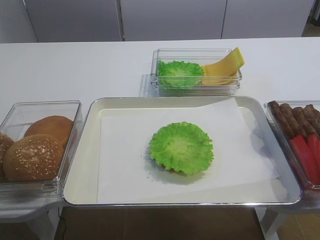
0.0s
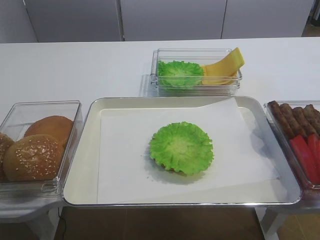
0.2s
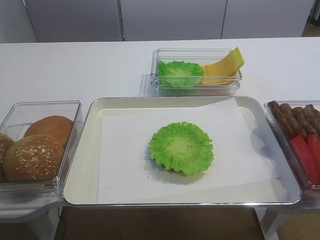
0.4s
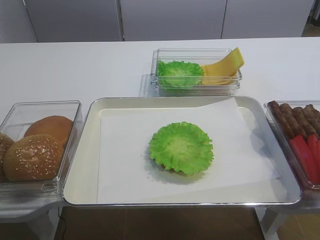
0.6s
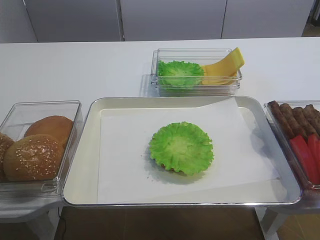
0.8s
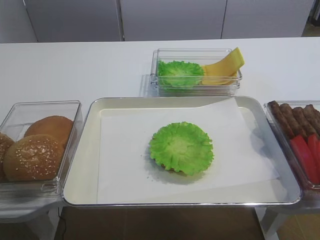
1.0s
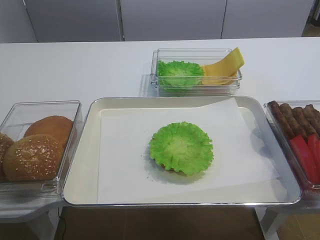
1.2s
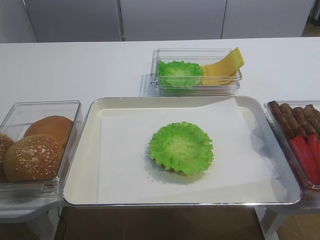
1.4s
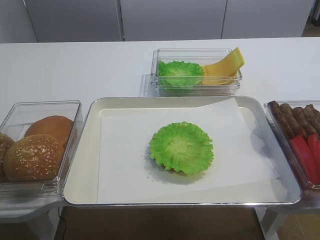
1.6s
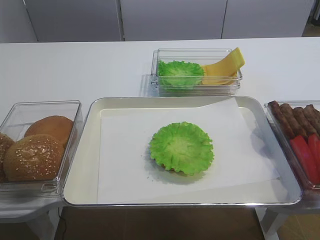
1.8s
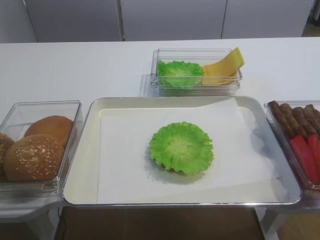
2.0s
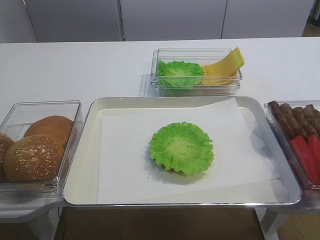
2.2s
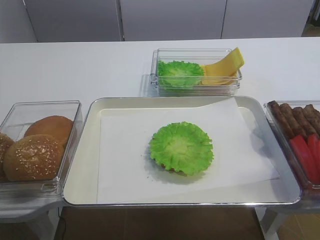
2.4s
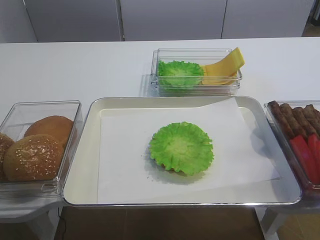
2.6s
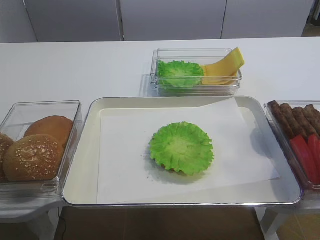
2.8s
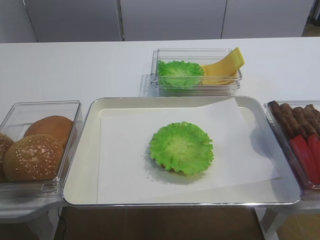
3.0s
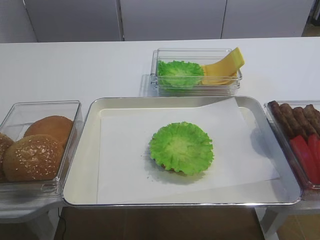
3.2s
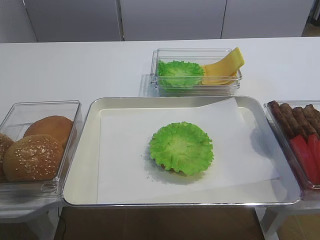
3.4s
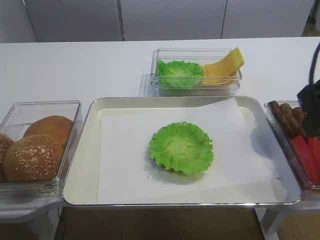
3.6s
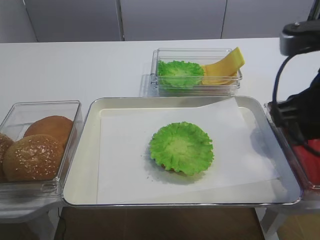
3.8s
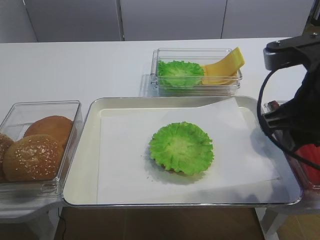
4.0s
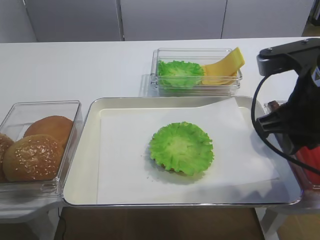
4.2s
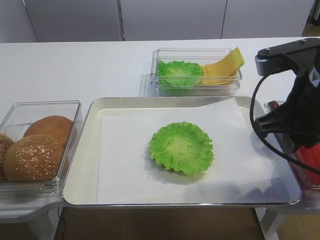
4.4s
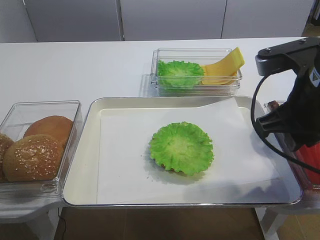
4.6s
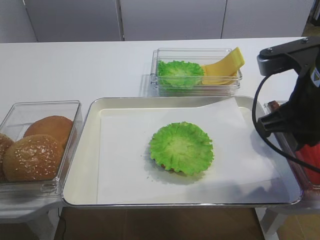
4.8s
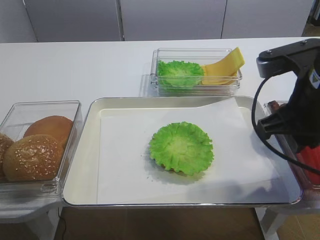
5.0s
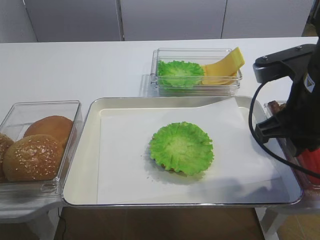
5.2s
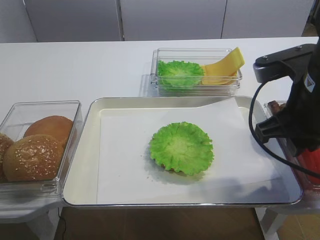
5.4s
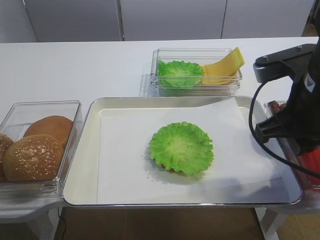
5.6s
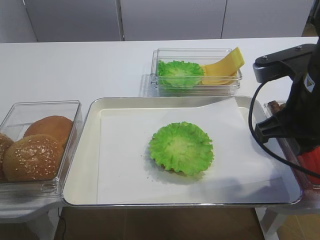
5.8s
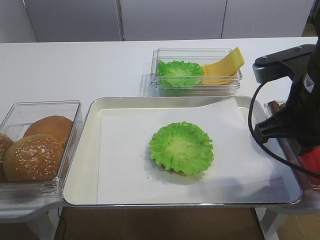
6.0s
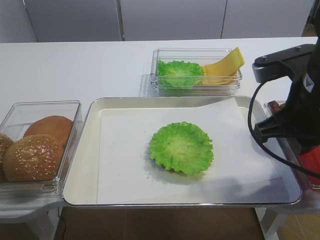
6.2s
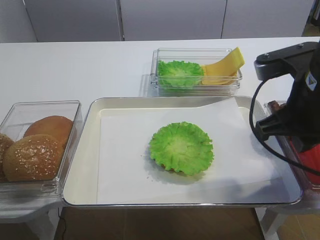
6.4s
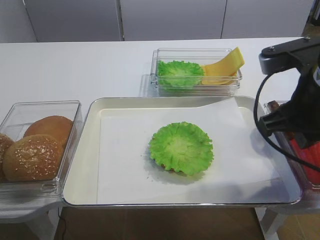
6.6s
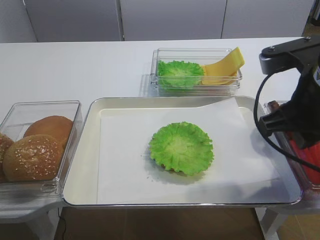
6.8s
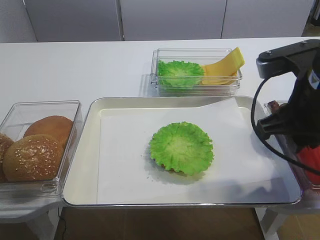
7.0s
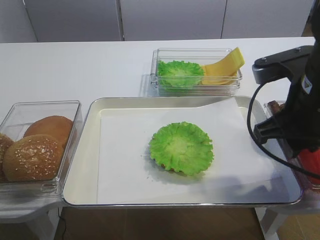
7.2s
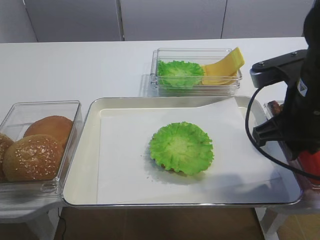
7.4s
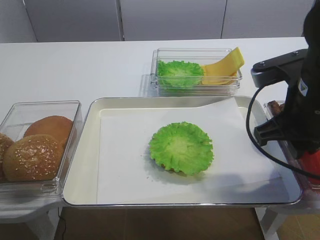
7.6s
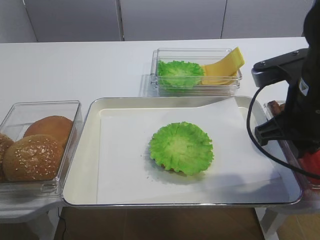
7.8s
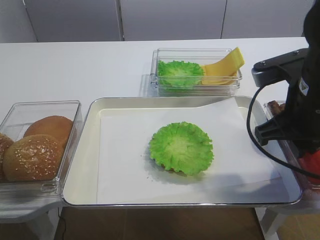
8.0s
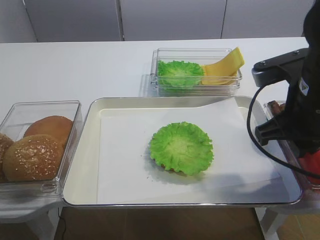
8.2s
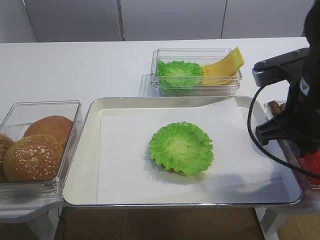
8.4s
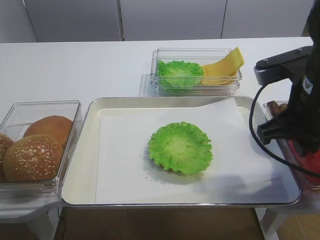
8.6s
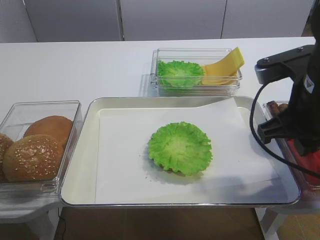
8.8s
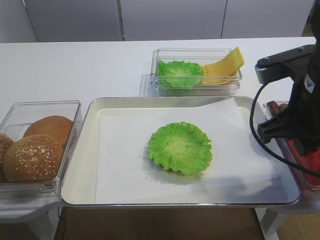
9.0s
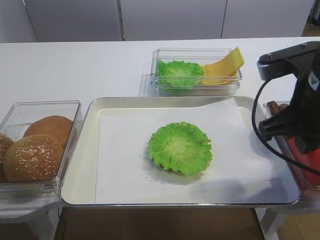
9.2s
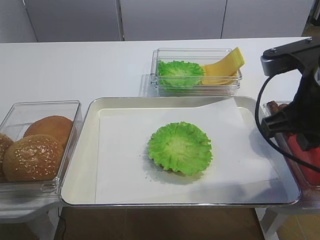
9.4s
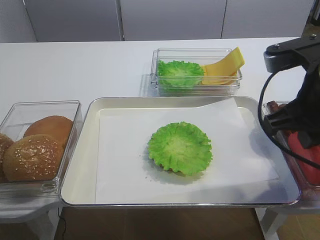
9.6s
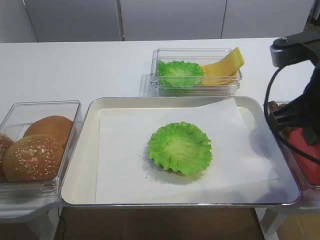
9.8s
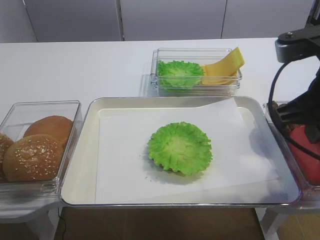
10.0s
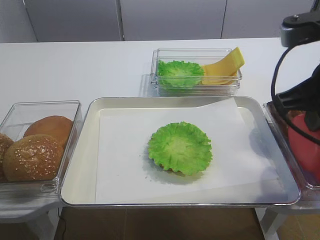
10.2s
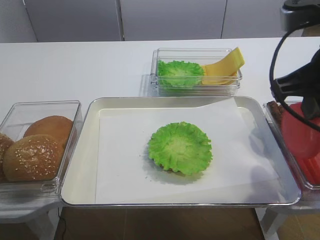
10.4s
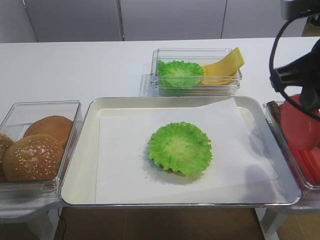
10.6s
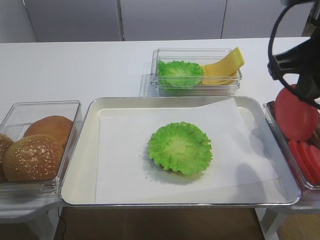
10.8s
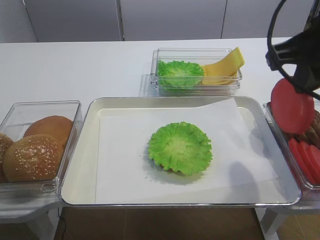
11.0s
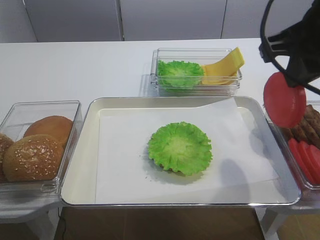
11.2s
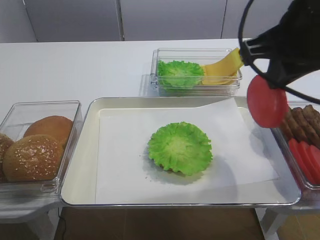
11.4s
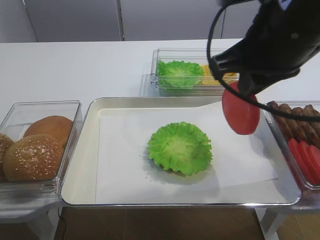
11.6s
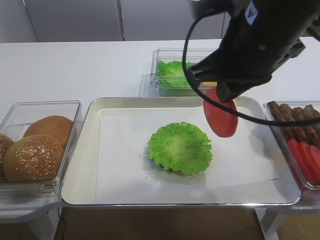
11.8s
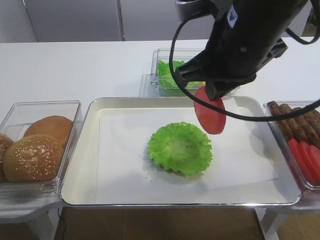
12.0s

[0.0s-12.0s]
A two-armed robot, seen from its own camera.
Step, 0.0s to 10.2s: Pick up the tomato slice with the right gripper.
3.0s to 4.4s: The right gripper shifts about 15 cm forward, to the left and downward, and closes its fingers.
4.4s to 6.0s: Neither gripper changes place.
6.0s to 9.0s: The two grippers keep their place.
9.0s to 10.4s: The right gripper heads upward, covering roughly 5 cm.
10.4s to 12.0s: The right gripper is displaced to the left by some 10 cm.

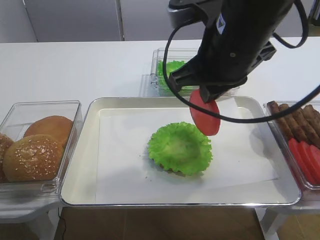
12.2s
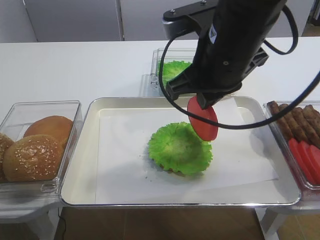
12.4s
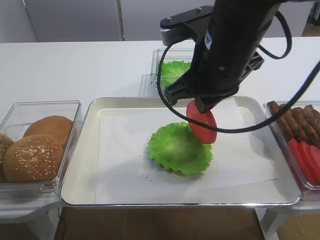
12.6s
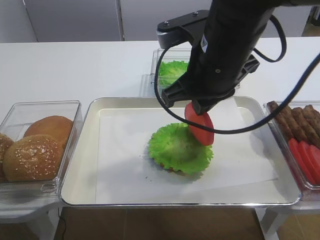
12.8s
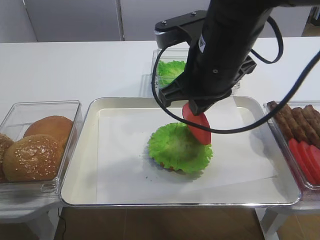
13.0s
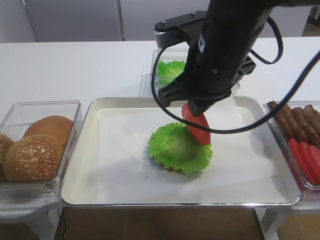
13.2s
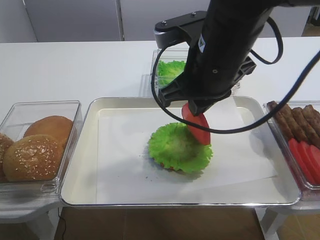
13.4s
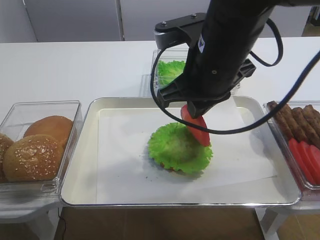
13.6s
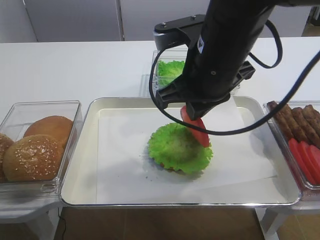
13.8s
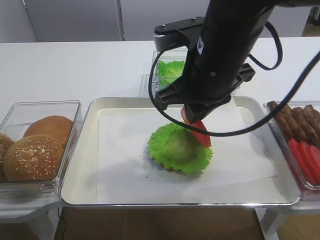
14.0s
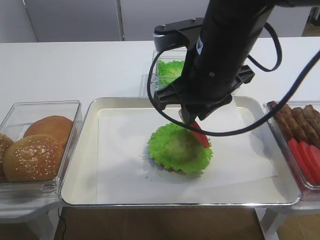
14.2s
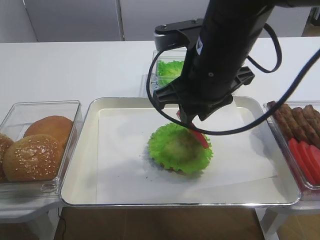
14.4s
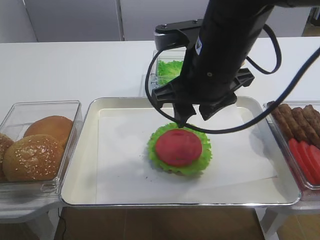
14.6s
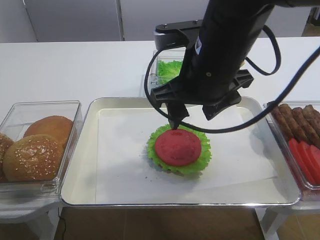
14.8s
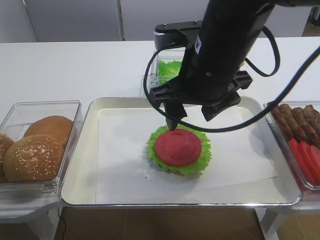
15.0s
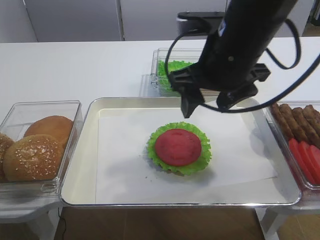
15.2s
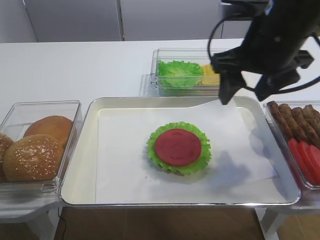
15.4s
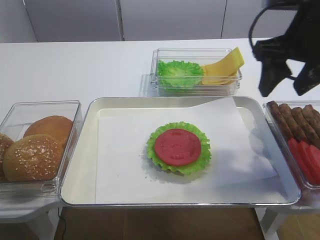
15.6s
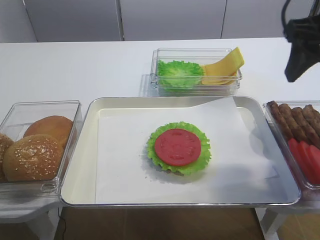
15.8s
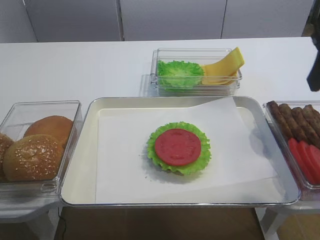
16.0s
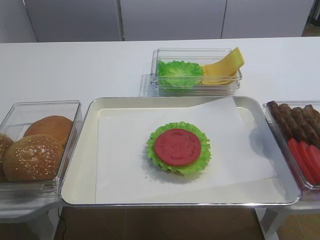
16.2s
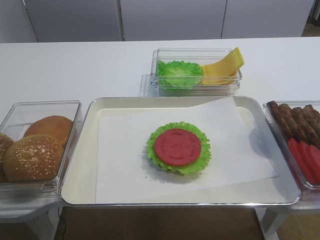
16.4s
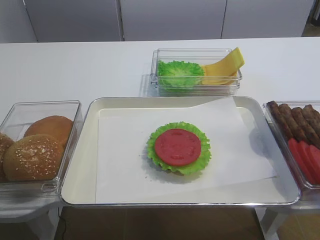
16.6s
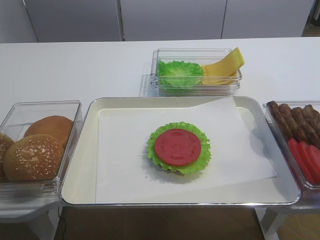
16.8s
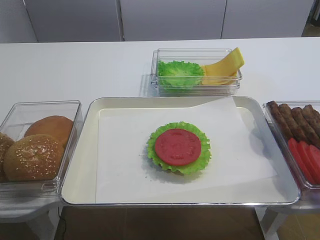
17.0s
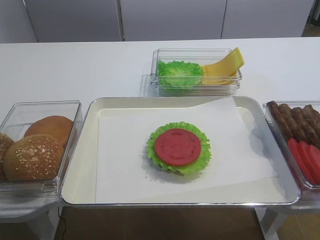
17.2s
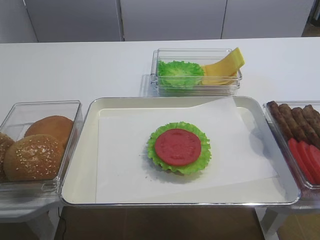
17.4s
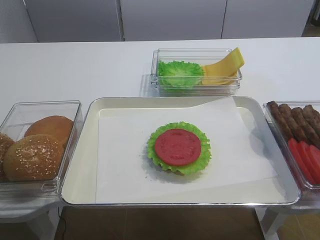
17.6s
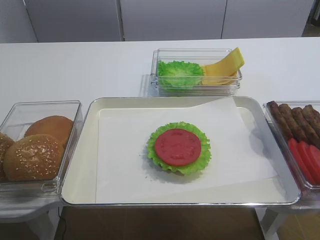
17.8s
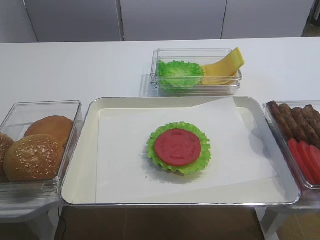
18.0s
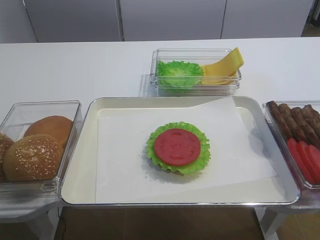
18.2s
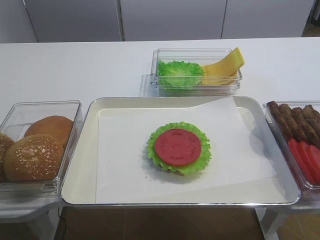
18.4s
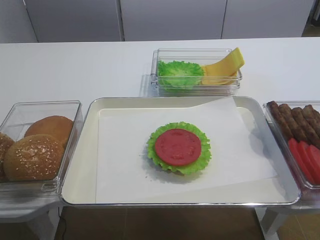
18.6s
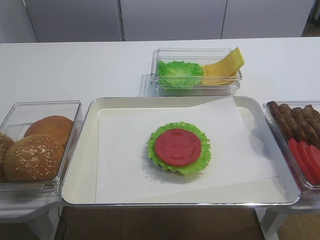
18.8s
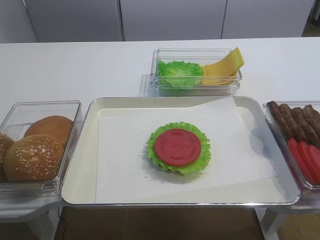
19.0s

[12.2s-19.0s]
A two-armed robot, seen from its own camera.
Step, 12.2s to 14.6s: Place the tomato slice on the lettuce leaf with the right gripper.
12.2s to 13.6s: The grippers make only small movements.
13.6s to 15.0s: The right gripper opens up.
15.0s to 16.2s: The right gripper heads to the right, backward and upward, covering some 20 cm.

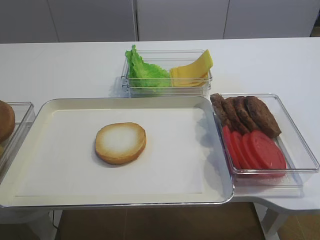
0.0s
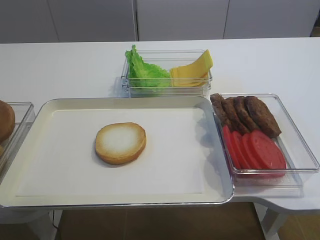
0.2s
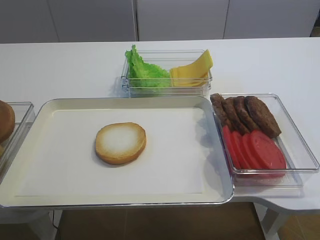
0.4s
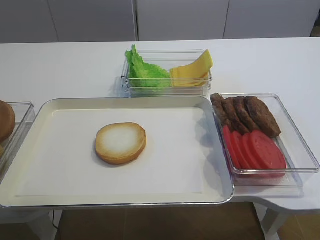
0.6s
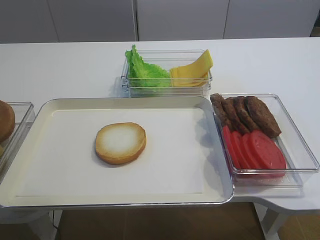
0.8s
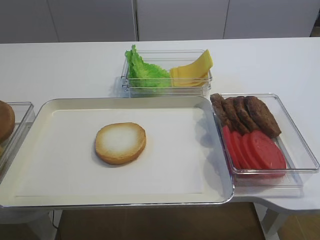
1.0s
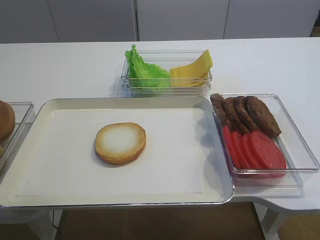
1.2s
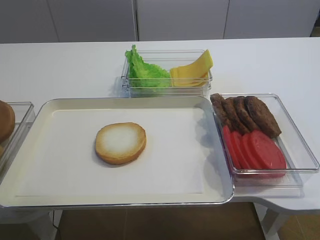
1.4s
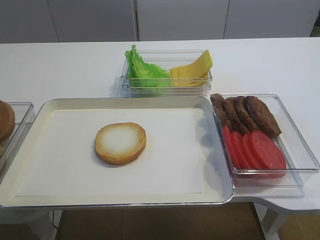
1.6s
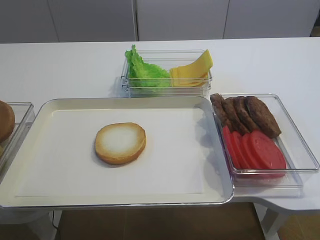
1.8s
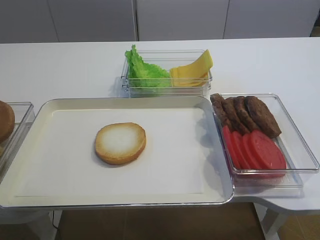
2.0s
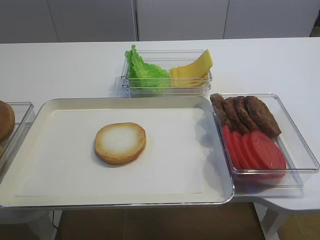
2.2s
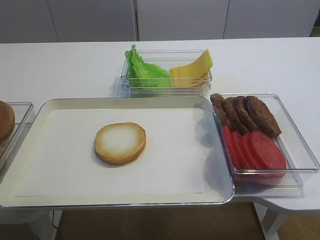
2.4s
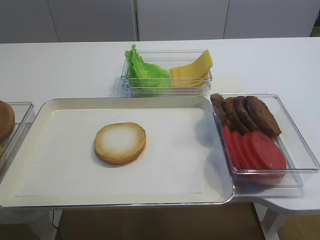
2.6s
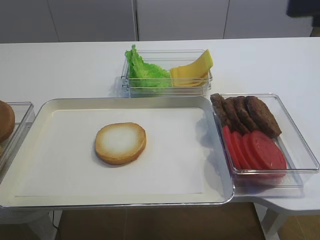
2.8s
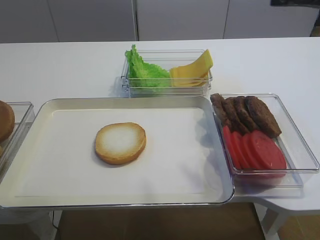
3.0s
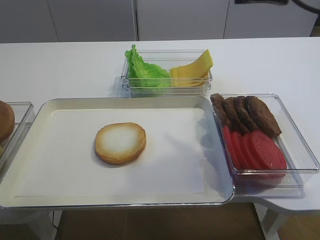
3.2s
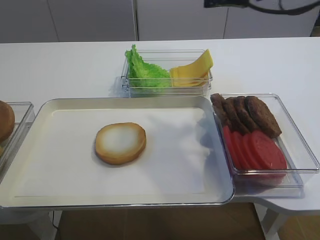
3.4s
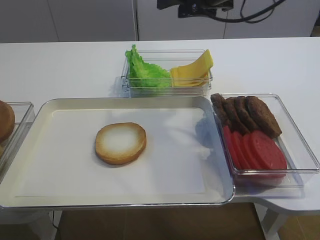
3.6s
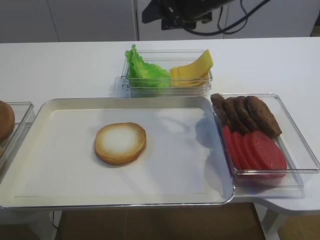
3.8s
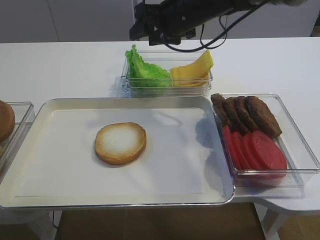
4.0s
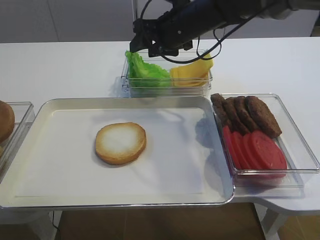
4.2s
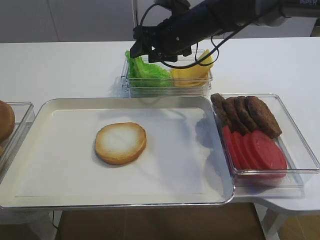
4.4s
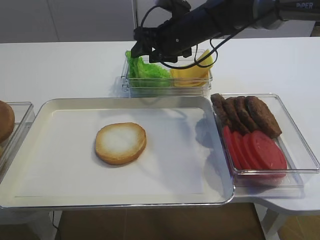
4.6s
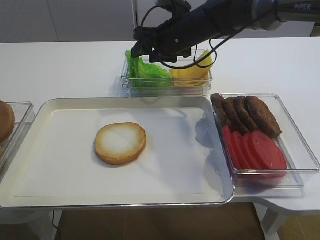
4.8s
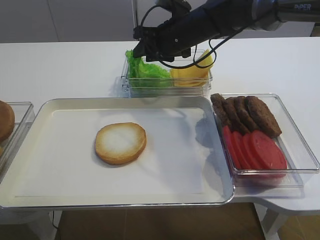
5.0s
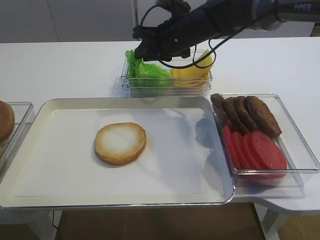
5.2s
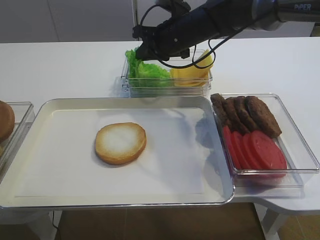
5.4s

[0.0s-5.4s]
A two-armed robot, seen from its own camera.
1.4s to 2.8s: The right gripper moves forward and upward, about 20 cm.
2.8s to 4.0s: The right gripper heads forward and to the left, covering approximately 30 cm.
4.0s to 5.4s: The right gripper ends up about 5 cm from where it was, and closes.
